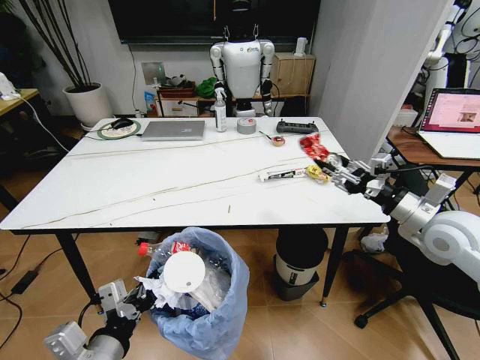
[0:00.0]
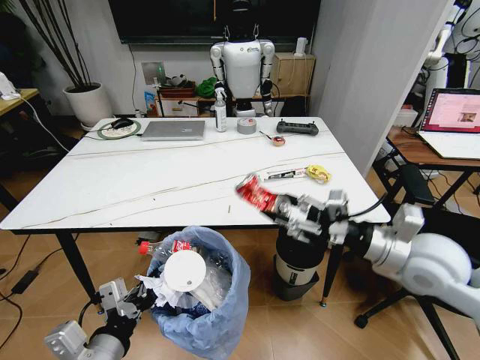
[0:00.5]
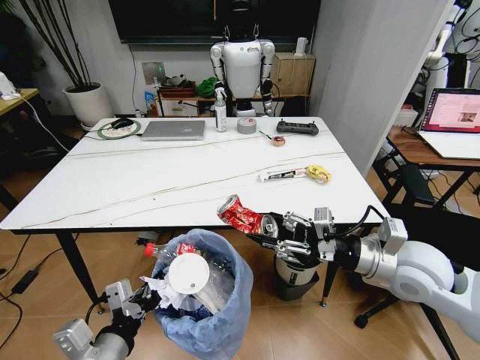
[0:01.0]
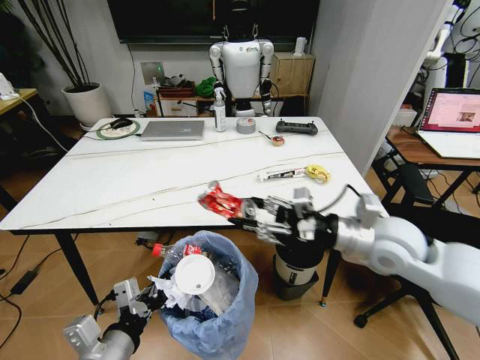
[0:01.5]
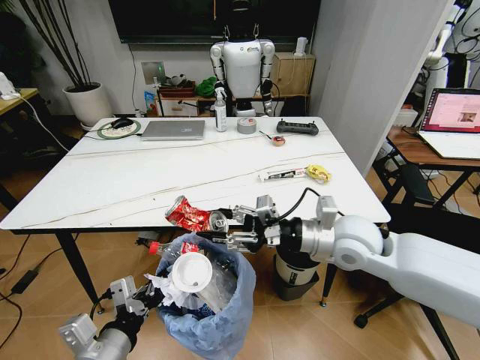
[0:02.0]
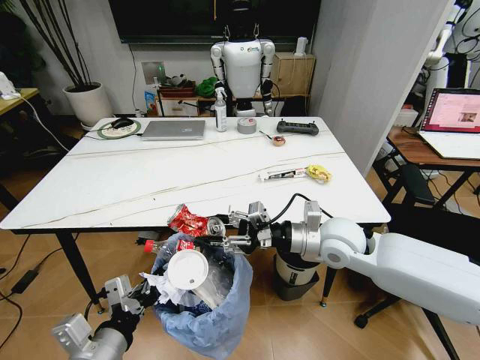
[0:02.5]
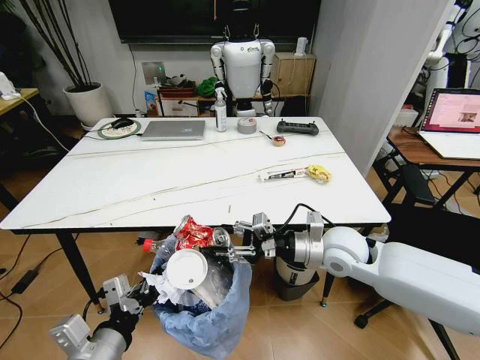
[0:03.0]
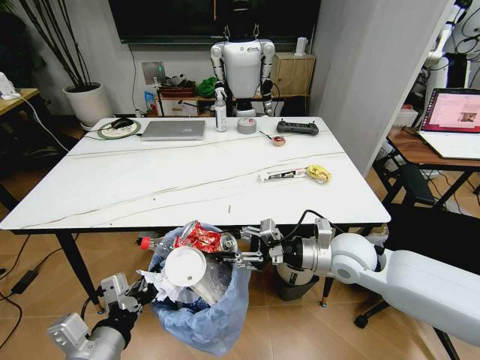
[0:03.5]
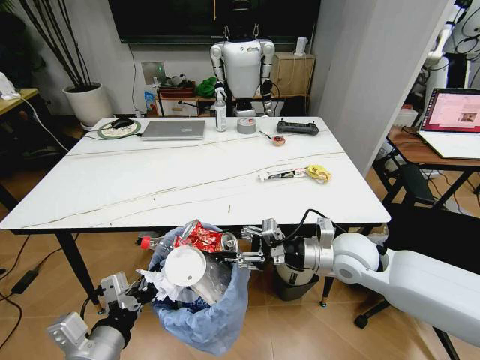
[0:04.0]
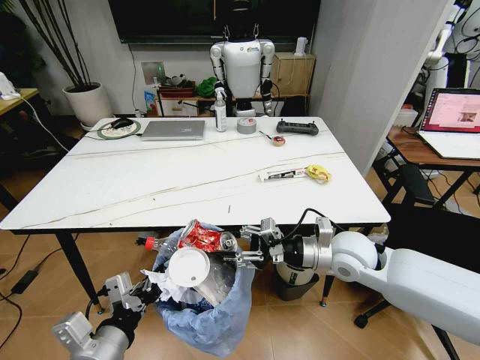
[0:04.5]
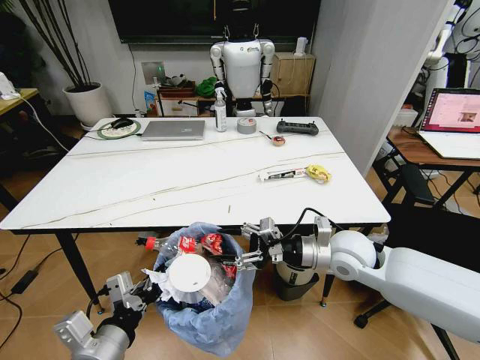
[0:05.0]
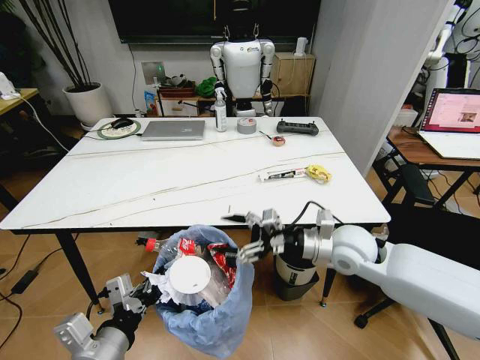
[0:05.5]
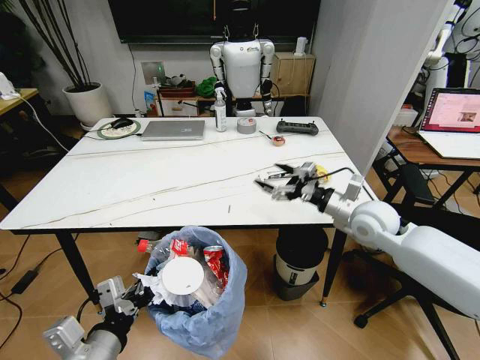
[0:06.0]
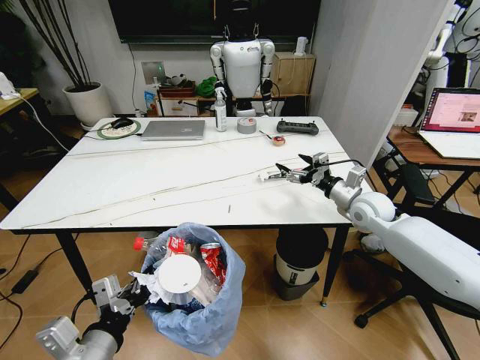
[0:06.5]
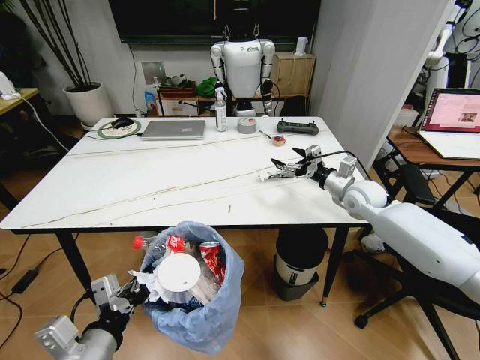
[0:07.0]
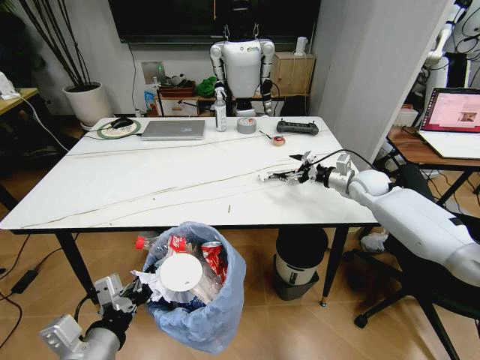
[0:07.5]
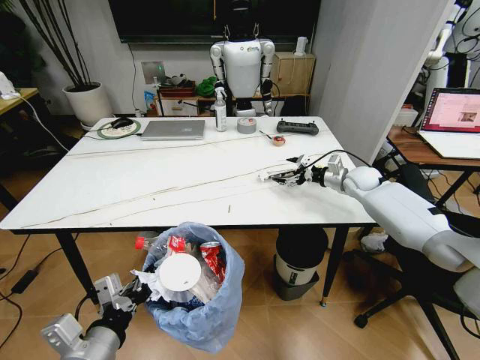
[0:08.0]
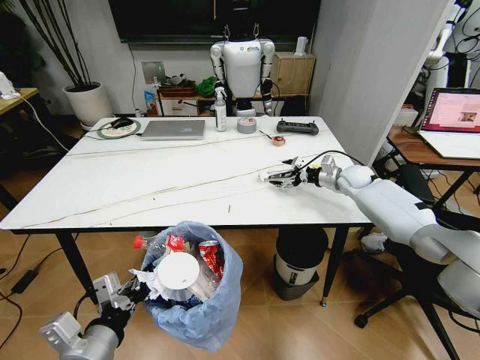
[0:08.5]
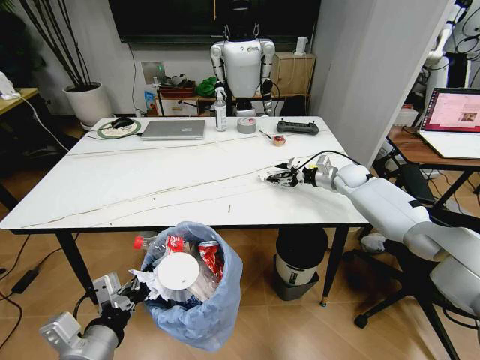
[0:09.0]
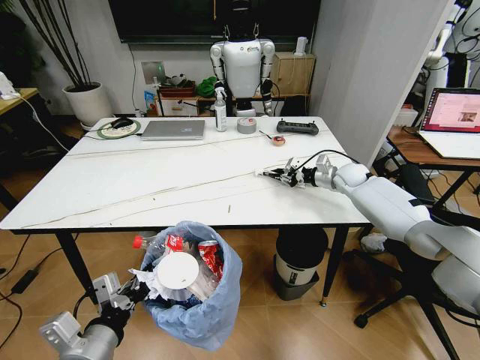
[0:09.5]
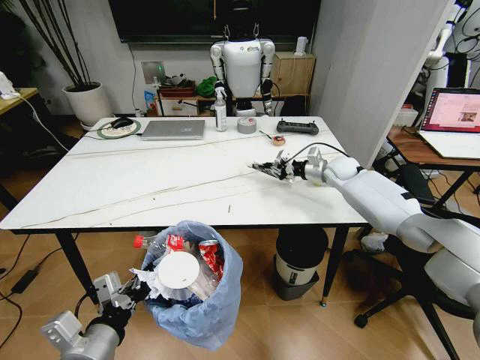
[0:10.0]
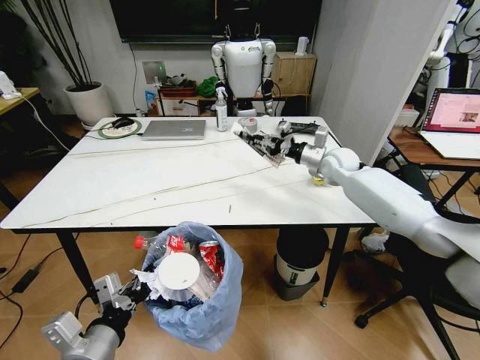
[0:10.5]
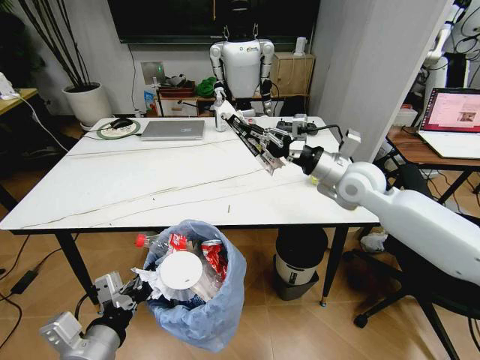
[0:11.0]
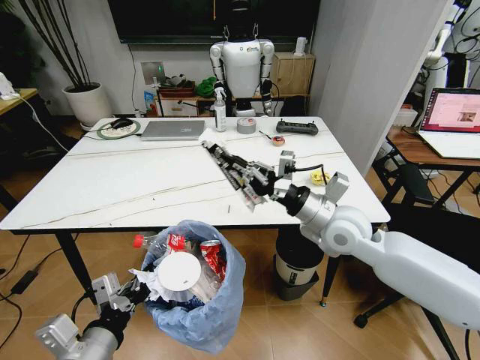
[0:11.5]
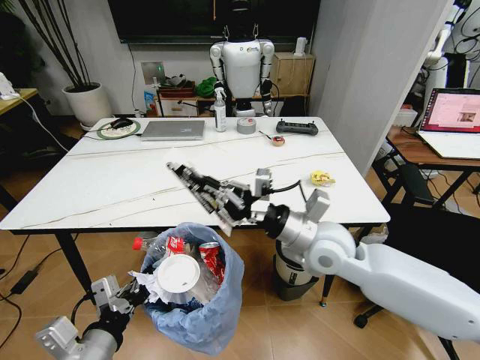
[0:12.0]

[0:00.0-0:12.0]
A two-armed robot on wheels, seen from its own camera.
Task of the whole recording: Pick up the trash bin and place the trash from the table into it.
0:00.0 to 0:02.0: The right gripper is displaced to the left by approximately 20 cm.
0:02.0 to 0:04.0: The right gripper shifts about 5 cm downward.
0:04.0 to 0:06.0: The right gripper travels forward and to the right by roughly 10 cm, and opens up.
0:06.0 to 0:08.0: The right gripper shifts approximately 20 cm forward.
0:08.0 to 0:10.0: The right gripper shifts roughly 5 cm to the left, and closes.
0:10.0 to 0:12.0: The right gripper travels backward and to the left by approximately 35 cm.

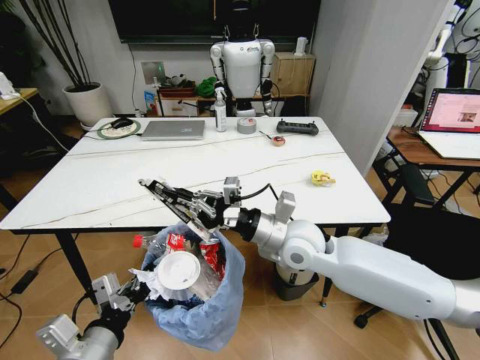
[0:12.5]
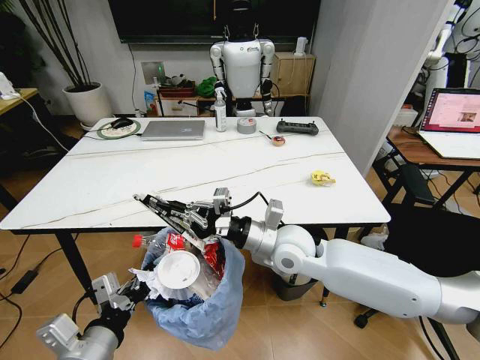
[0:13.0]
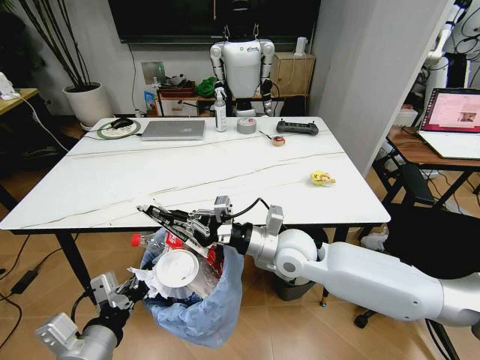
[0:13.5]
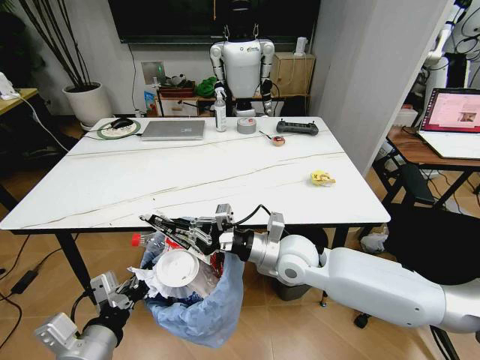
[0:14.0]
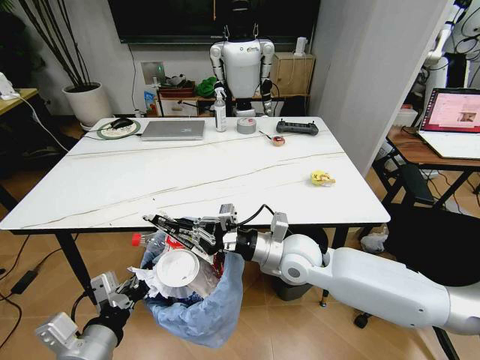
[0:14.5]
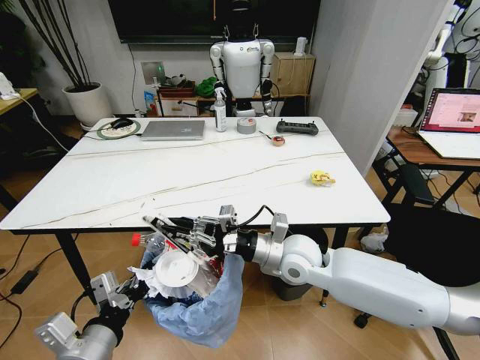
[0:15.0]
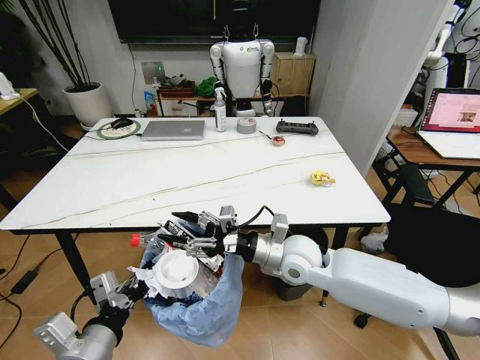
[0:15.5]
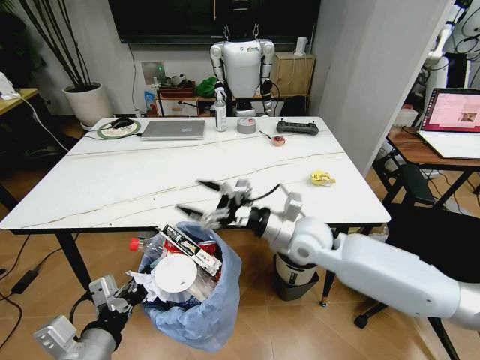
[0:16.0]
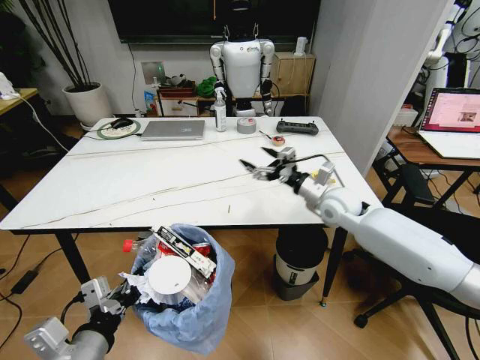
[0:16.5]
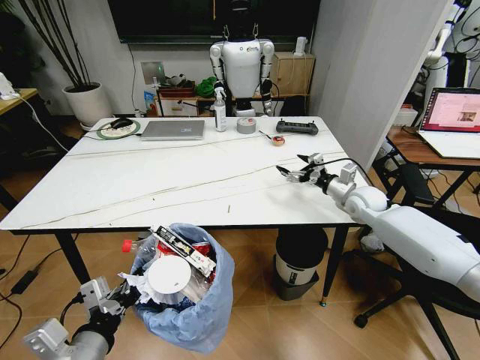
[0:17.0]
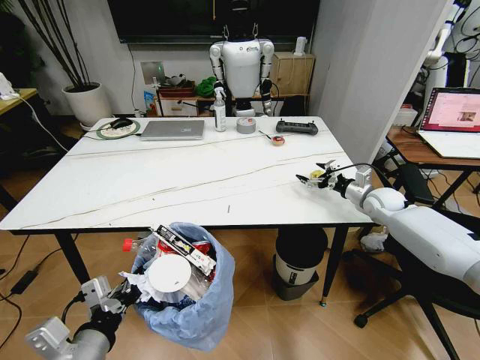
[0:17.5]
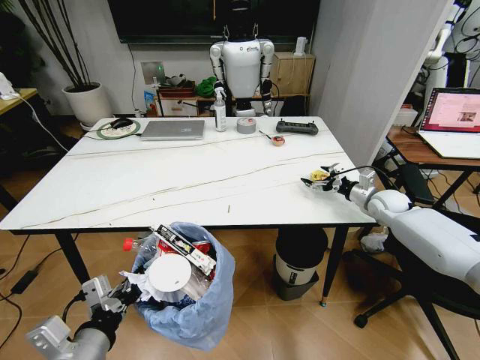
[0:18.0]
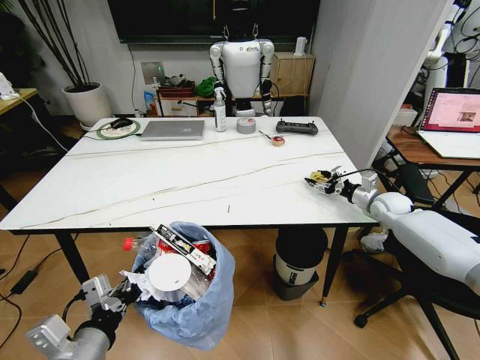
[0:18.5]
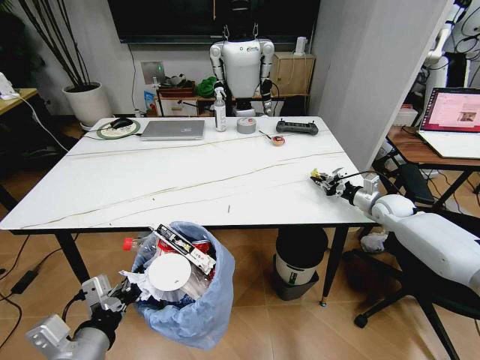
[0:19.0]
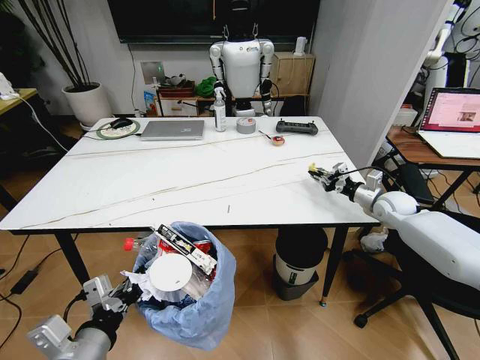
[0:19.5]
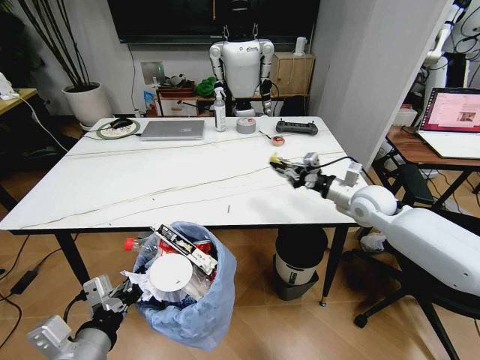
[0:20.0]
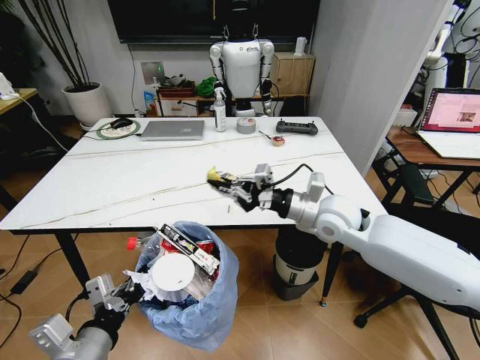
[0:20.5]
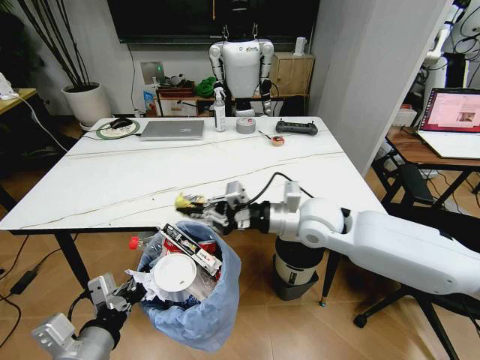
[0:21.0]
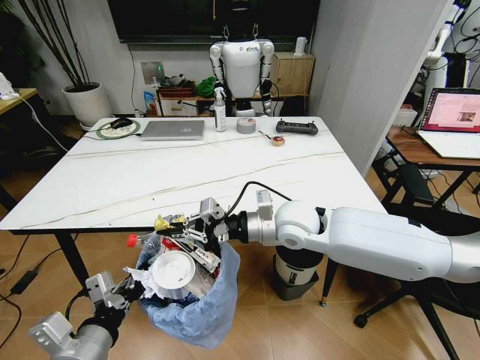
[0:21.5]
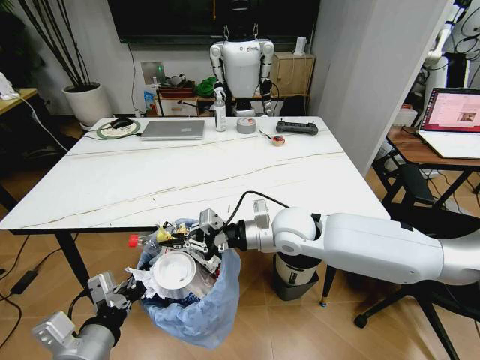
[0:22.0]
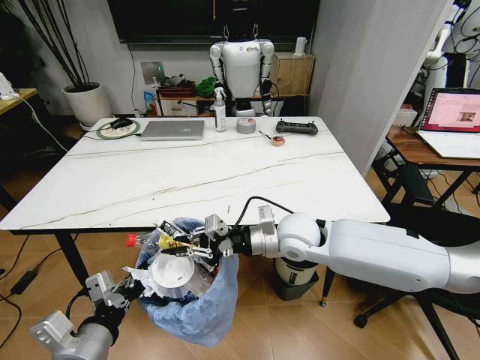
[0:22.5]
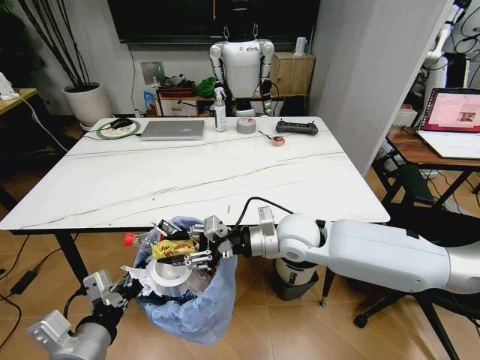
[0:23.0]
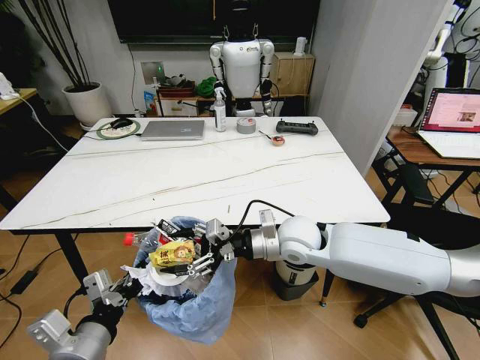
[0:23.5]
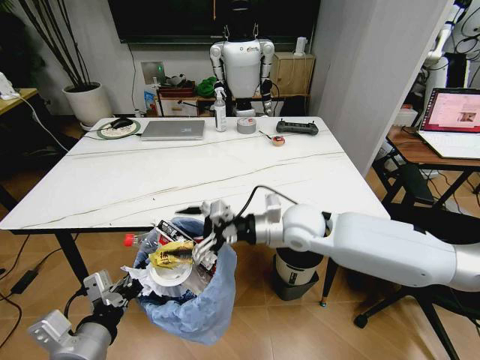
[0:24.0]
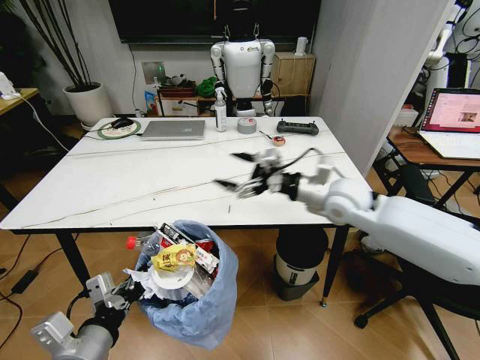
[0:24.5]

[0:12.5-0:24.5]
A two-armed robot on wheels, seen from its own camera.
Task of the whole recording: Pick up the trash bin and place the trash from the table into it.
0:12.5 to 0:14.5: There are only small adjustments of the grippers.
0:14.5 to 0:16.5: The right gripper shifts about 20 cm forward and to the right, and opens its fingers.
0:16.5 to 0:18.5: The right gripper goes roughly 20 cm to the right, and closes its fingers.
0:18.5 to 0:20.5: The right gripper shifts approximately 30 cm to the left, backward and upward, and closes up.
0:20.5 to 0:22.5: The right gripper is displaced to the left by some 10 cm.
0:22.5 to 0:24.5: The right gripper shifts about 15 cm to the right, upward and forward, and opens.

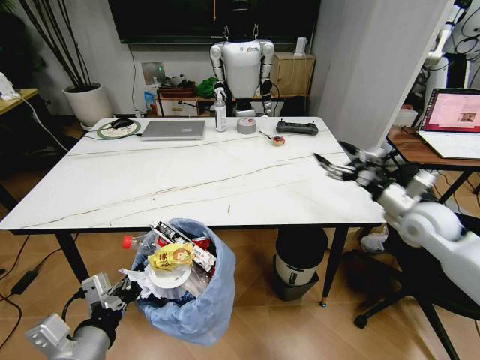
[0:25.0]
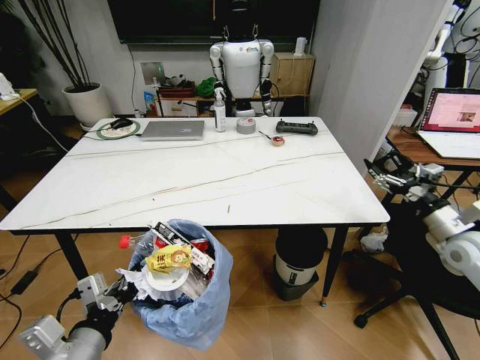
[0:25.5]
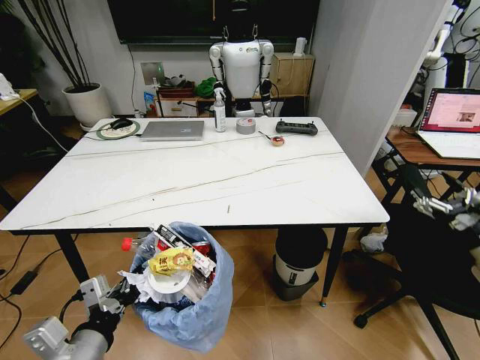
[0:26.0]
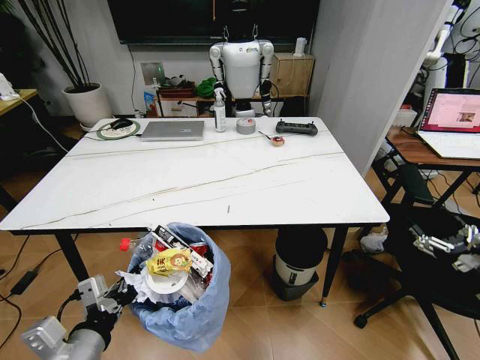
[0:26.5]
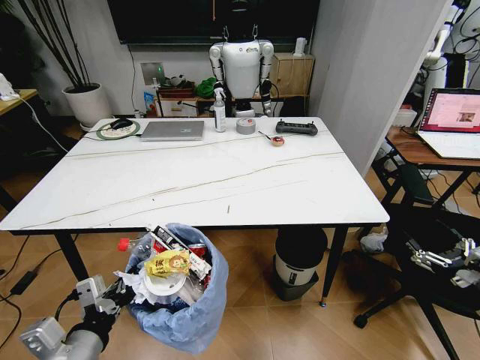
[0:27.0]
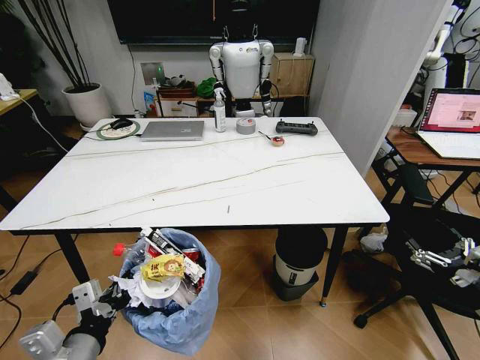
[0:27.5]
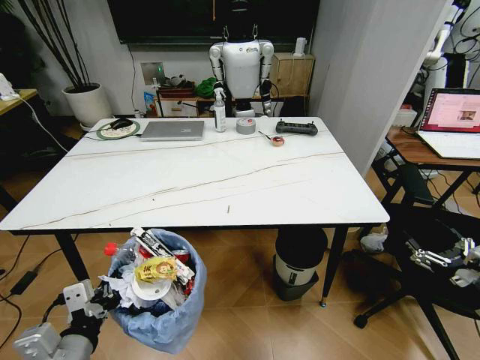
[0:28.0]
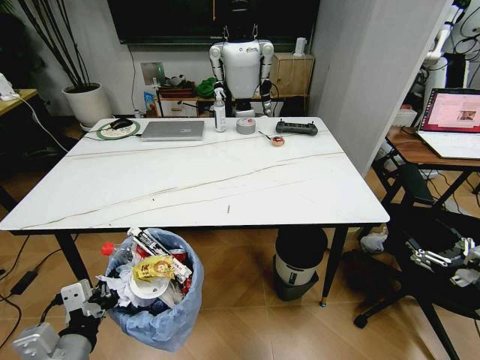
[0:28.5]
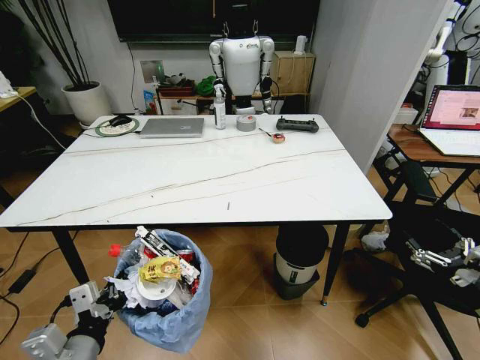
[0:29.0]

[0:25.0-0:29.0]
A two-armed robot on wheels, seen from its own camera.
Task of the whole recording: Pick up the trash bin and place the trash from the table into it.
0:25.0 to 0:27.0: The right gripper heads backward and to the right, covering approximately 25 cm.
0:27.0 to 0:29.0: The grippers move only a little.
